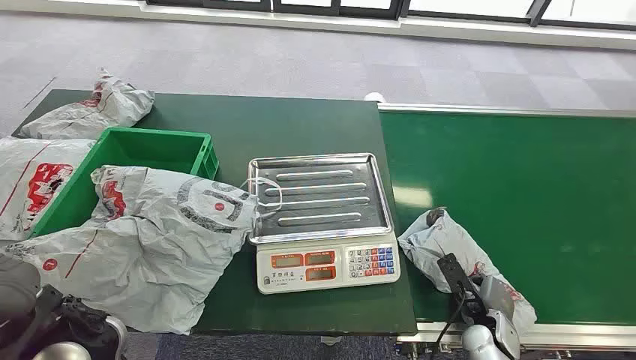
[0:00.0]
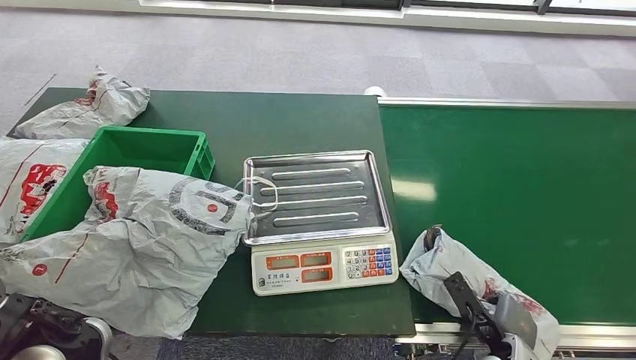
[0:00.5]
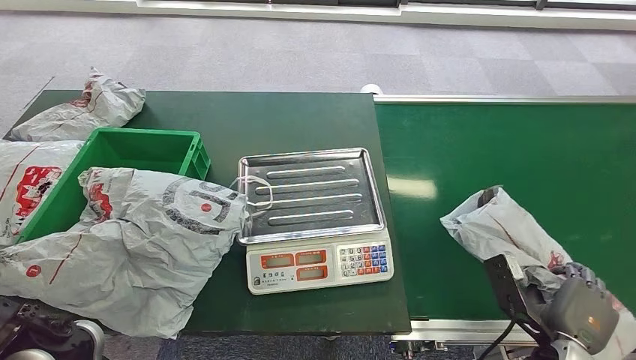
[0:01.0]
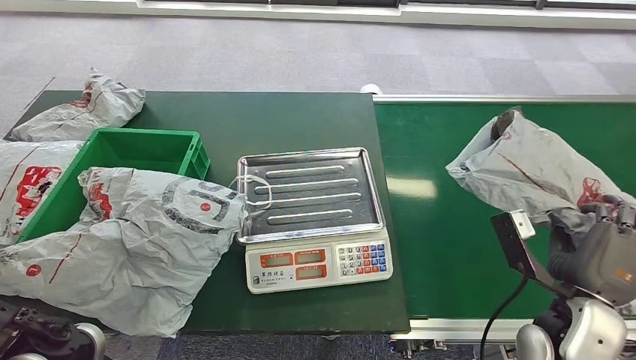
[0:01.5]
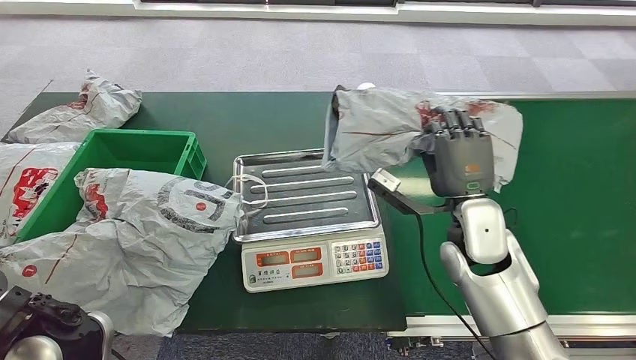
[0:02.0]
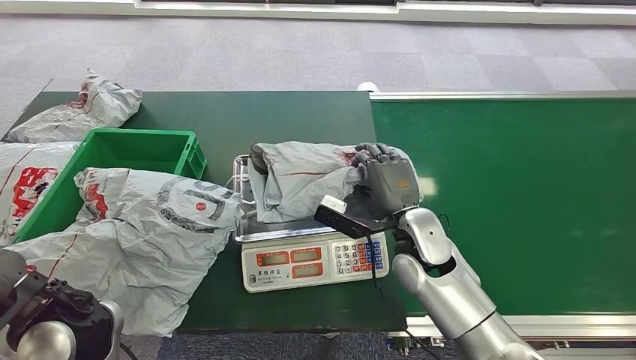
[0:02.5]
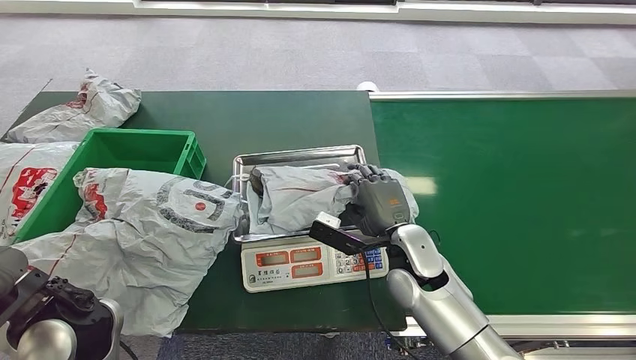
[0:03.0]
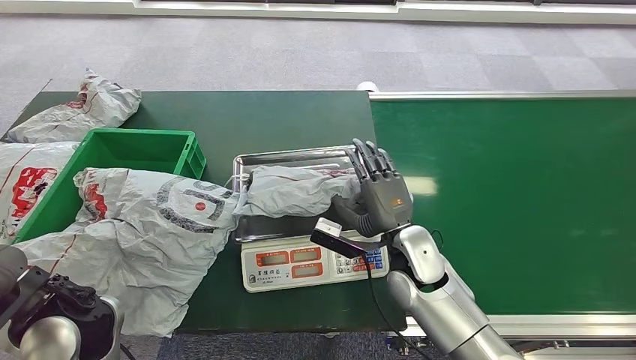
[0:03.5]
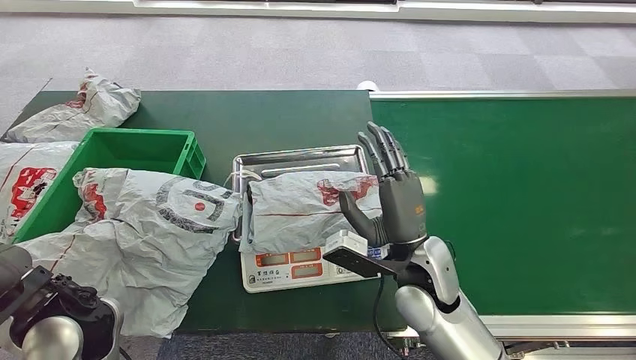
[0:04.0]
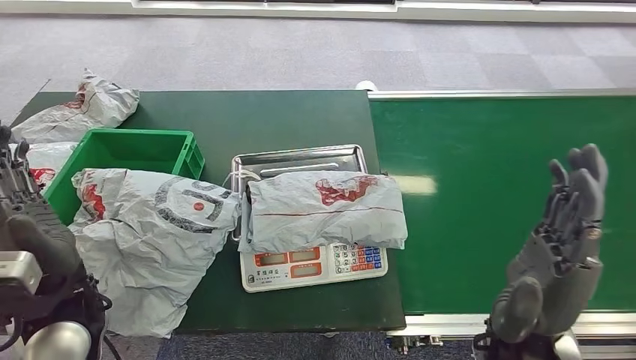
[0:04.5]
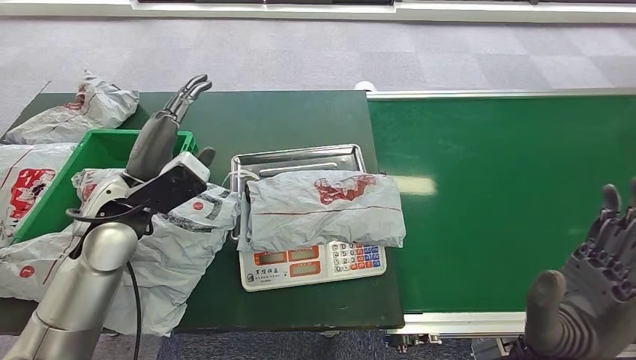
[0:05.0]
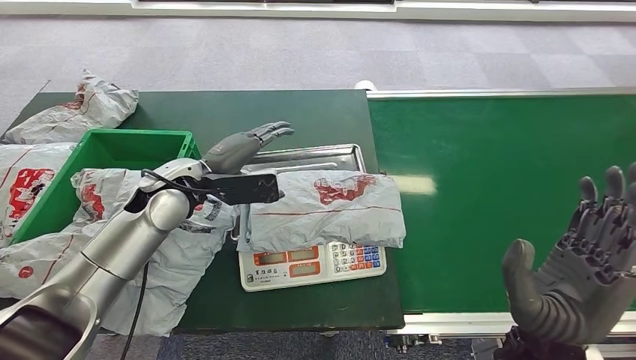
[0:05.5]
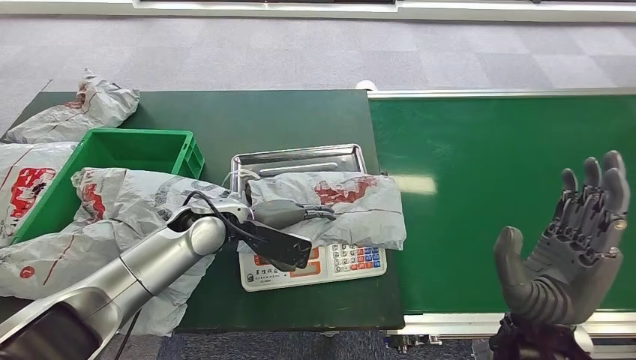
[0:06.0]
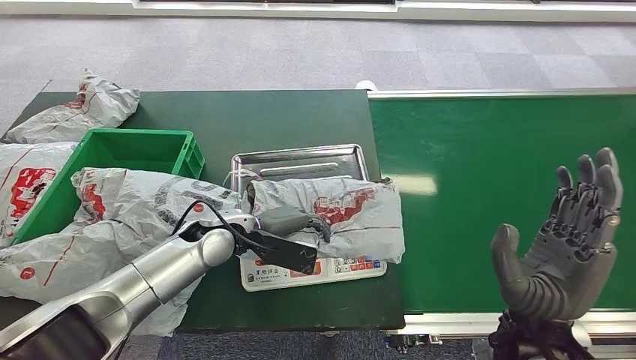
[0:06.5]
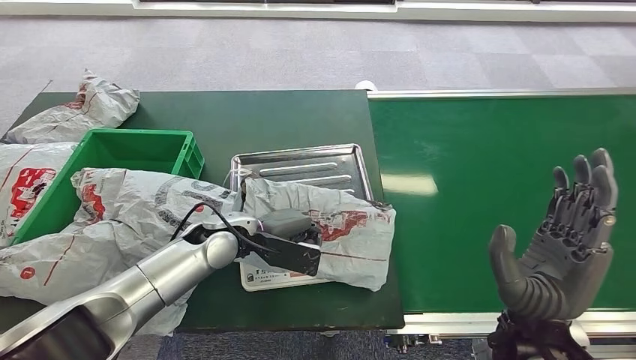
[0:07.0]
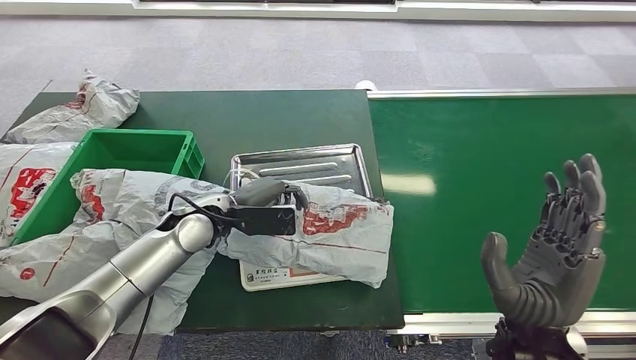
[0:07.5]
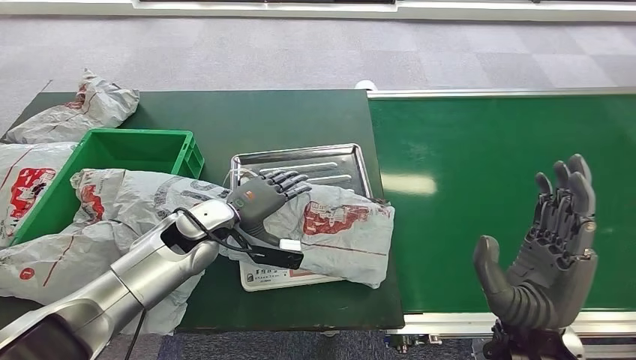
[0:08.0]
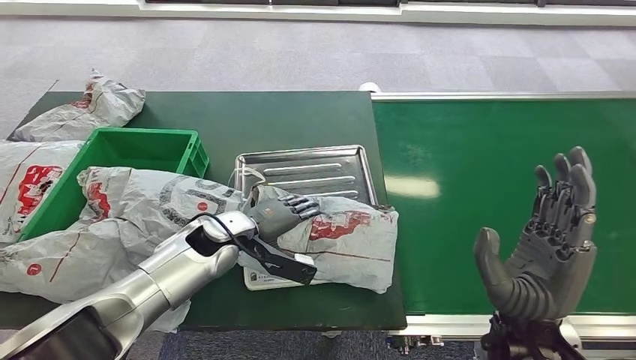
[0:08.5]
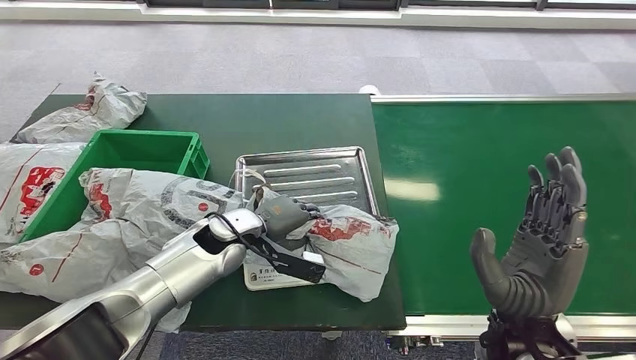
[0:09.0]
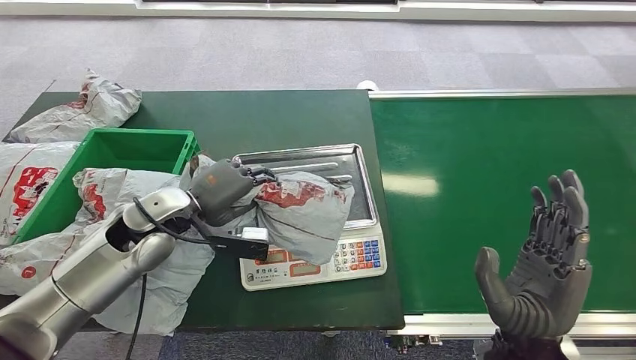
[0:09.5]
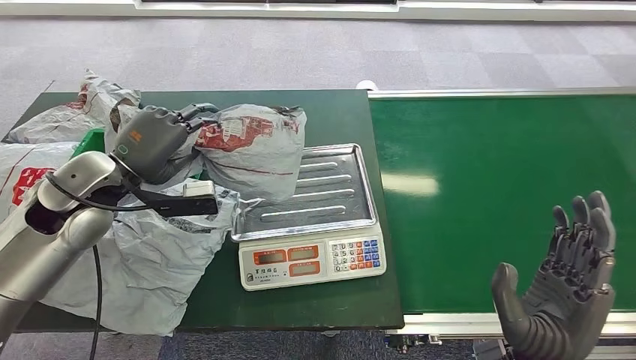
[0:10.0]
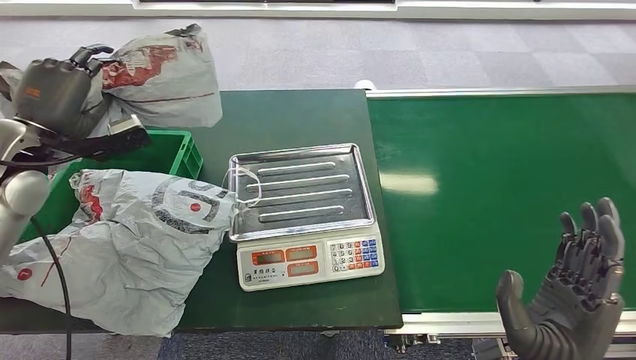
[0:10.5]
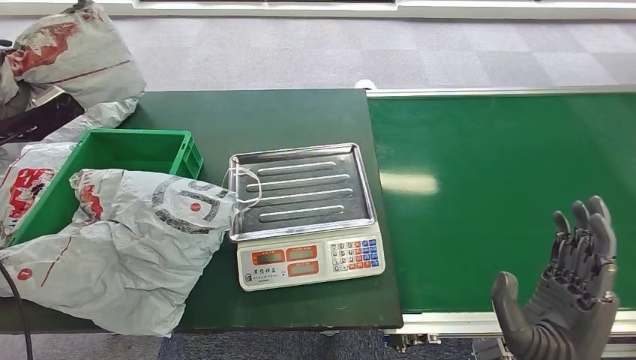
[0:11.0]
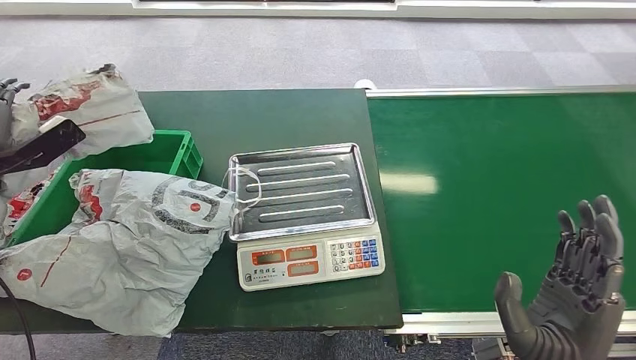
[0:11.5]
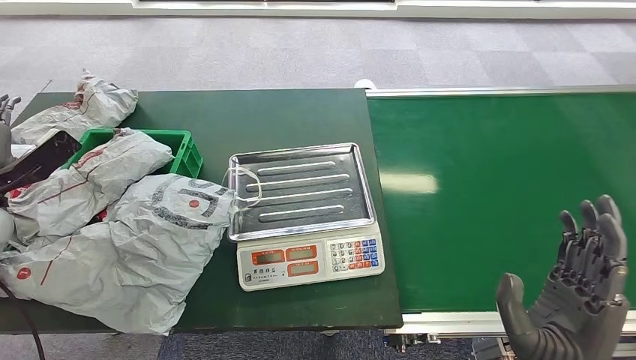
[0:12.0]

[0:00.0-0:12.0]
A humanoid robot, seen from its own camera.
Step, 0:00.0 to 0:02.0: Pick up the package from the conveyor belt.
Step, 0:02.5 to 0:03.5: Place the package onto the inbound machine.
Step, 0:04.0 to 0:09.5: Pick up the package from the inbound machine.
Step, 0:10.0 to 0:12.0: Place the package into the parcel locker.
